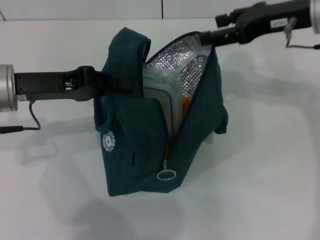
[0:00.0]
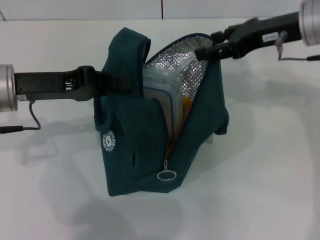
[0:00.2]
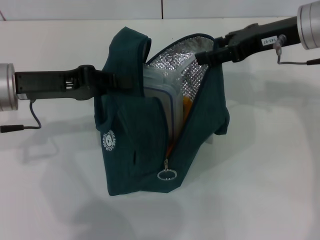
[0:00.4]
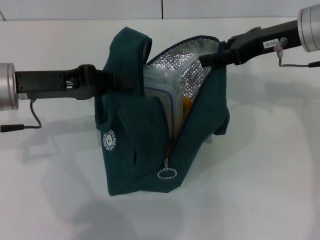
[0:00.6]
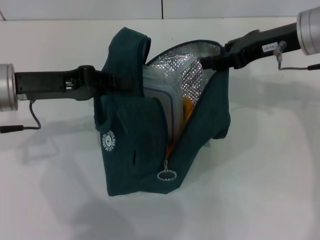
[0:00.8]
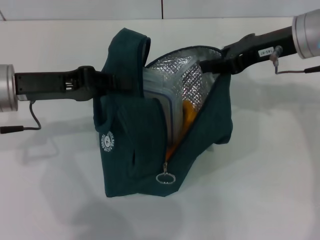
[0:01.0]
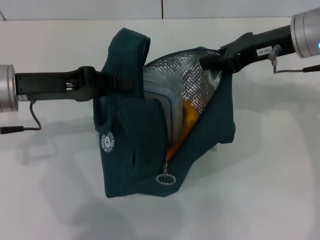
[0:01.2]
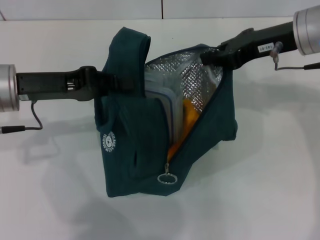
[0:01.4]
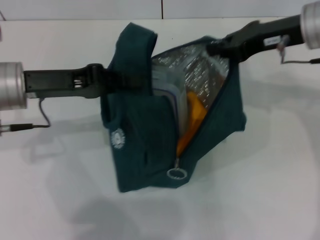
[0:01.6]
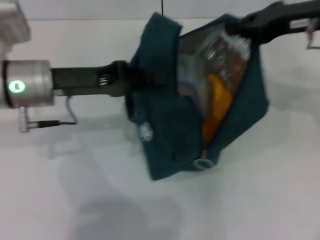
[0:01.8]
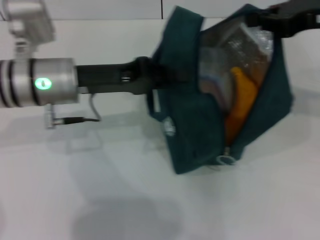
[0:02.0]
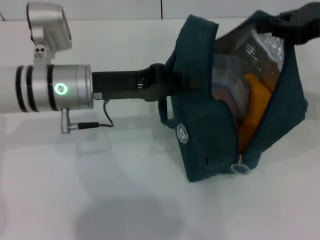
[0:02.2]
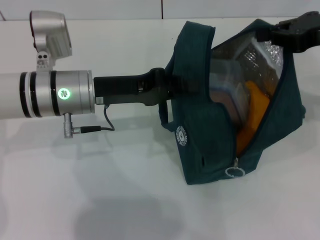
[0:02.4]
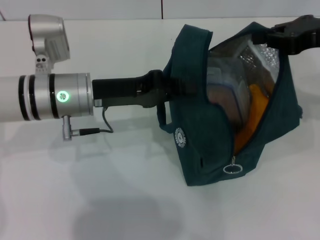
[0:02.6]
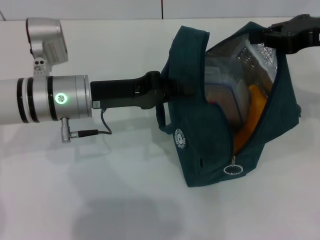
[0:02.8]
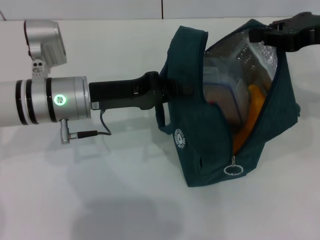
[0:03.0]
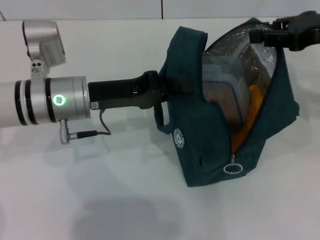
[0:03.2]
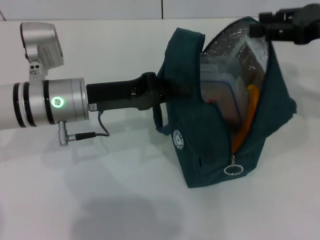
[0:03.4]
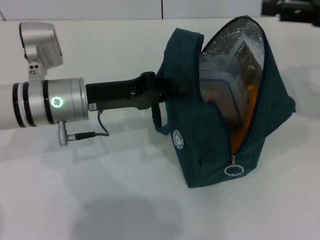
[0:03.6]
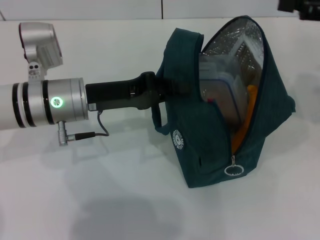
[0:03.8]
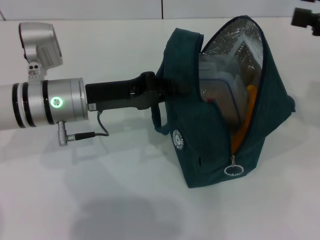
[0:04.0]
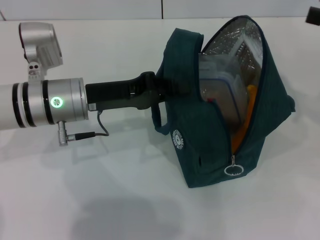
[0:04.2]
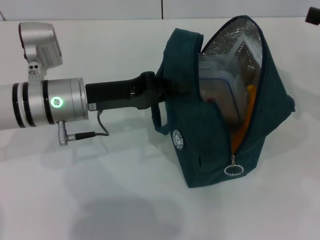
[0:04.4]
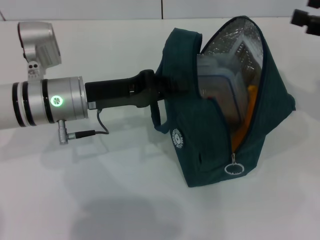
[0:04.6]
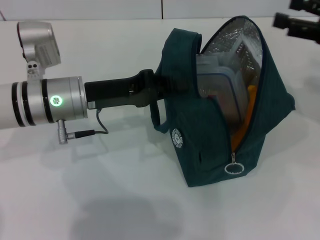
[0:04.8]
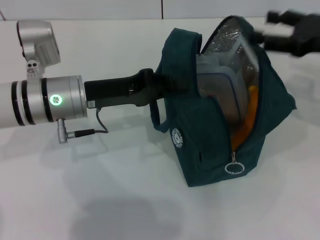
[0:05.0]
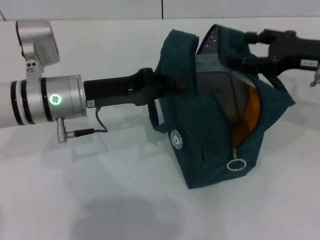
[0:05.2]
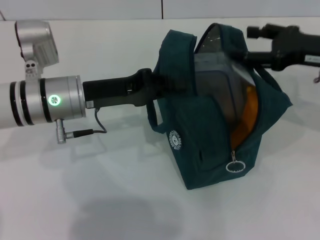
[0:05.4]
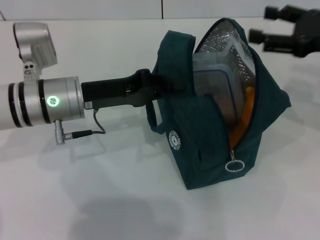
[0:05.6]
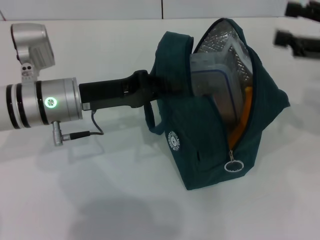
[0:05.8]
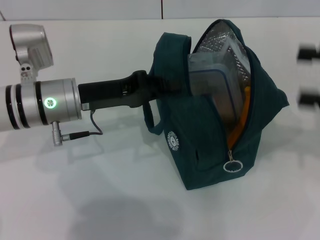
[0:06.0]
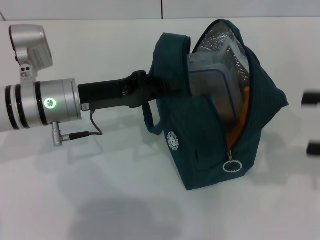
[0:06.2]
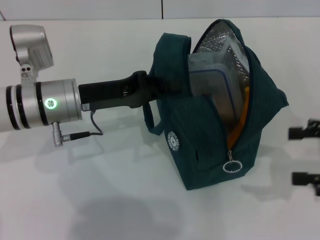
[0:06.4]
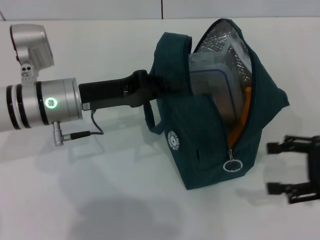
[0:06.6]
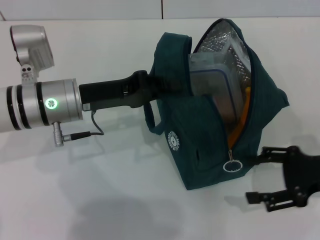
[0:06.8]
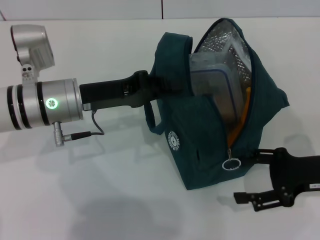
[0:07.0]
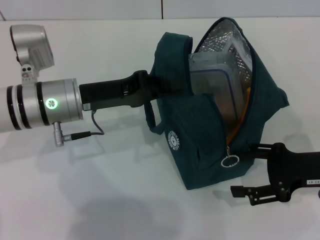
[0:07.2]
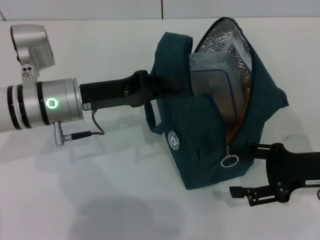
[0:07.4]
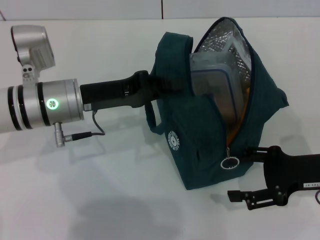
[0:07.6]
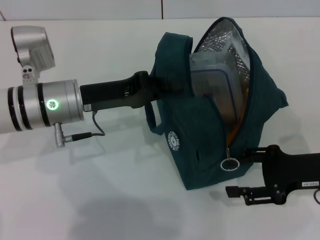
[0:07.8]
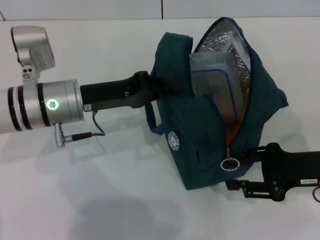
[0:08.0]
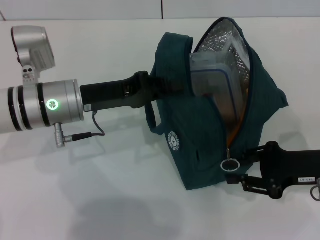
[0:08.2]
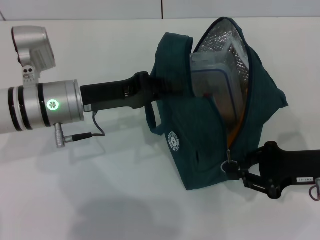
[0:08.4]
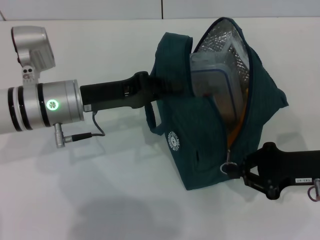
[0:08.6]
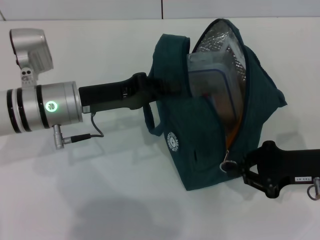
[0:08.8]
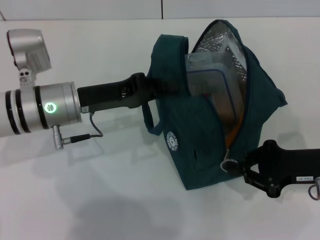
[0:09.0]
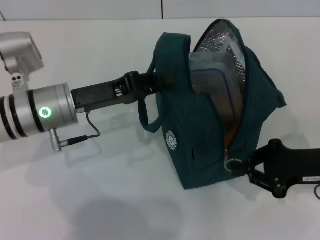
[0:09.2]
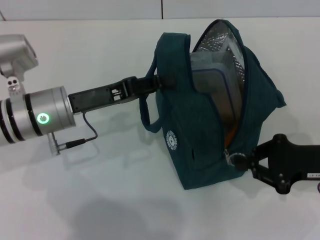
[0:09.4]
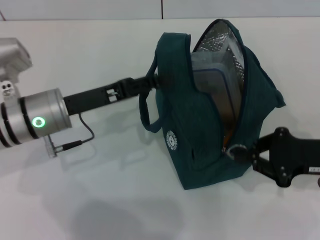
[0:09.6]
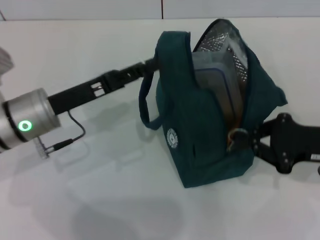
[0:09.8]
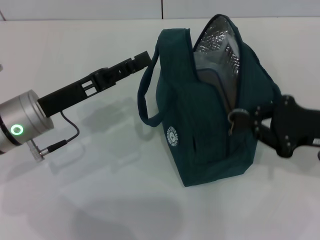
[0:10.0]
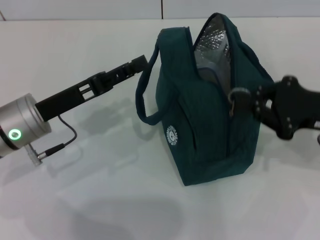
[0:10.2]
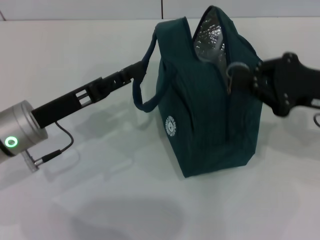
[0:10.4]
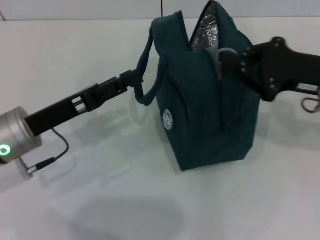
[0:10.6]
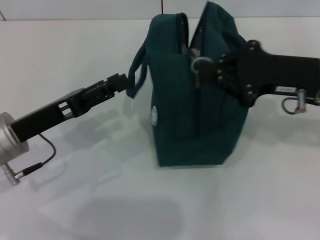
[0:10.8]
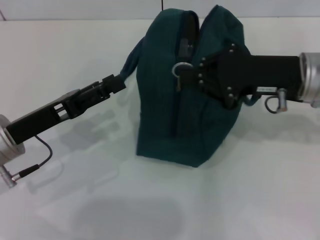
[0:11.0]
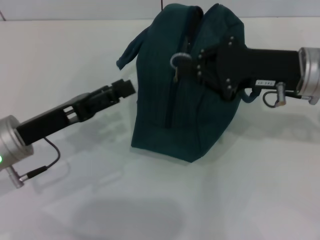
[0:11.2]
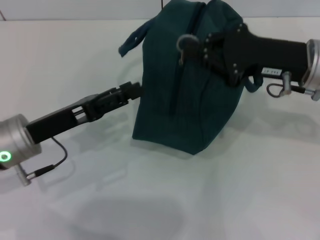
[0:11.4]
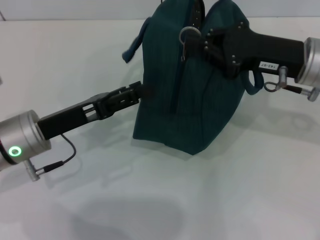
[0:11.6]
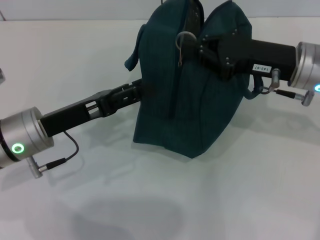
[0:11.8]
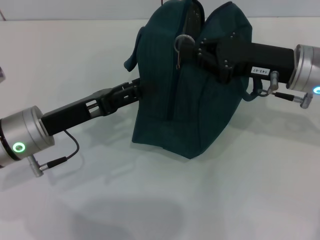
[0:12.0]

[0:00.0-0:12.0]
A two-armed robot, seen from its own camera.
Step, 0:00.0 to 0:03.6: Hold the lunch bag with your right hand.
0:00.0 to 0:01.6: The right gripper closes up.
0:01.6 to 0:03.0: Both grippers move to the right, approximately 5 cm.
0:03.0 to 0:04.4: The right gripper heads to the right, covering approximately 10 cm, and opens its fingers.
0:04.4 to 0:06.0: The right gripper goes about 5 cm backward.
0:06.0 to 0:07.6: The right gripper is displaced downward and to the left by approximately 15 cm.
0:07.6 to 0:09.0: The right gripper closes up.
0:09.0 to 0:10.4: The right gripper travels upward by about 5 cm, while the left gripper shifts by approximately 5 cm, and opens its fingers.
0:10.4 to 0:12.0: The right gripper shifts approximately 5 cm to the left.

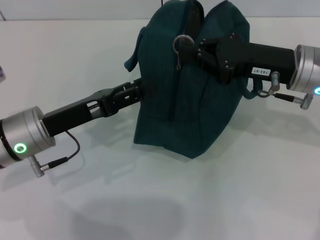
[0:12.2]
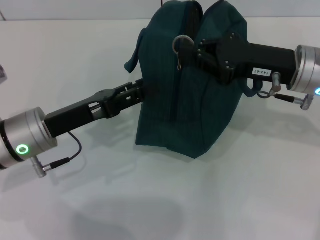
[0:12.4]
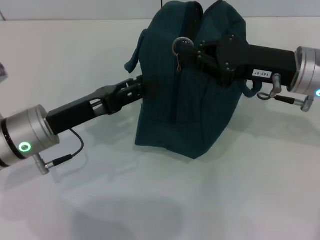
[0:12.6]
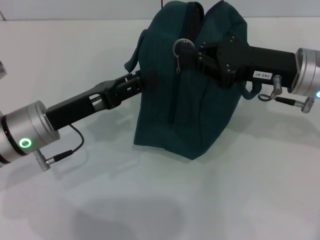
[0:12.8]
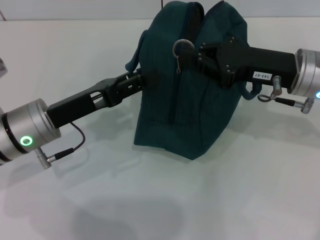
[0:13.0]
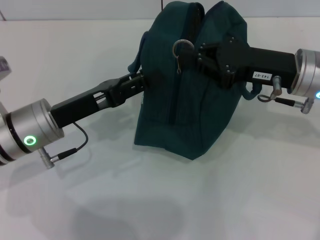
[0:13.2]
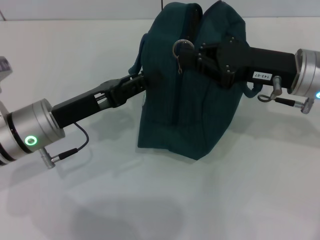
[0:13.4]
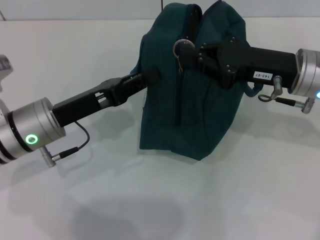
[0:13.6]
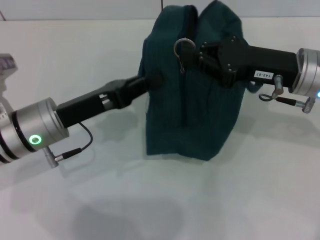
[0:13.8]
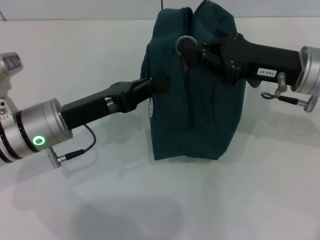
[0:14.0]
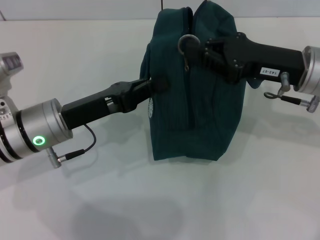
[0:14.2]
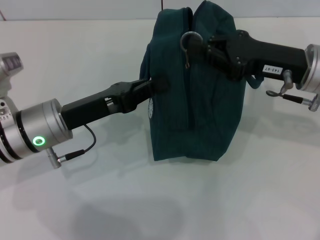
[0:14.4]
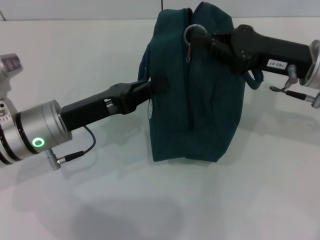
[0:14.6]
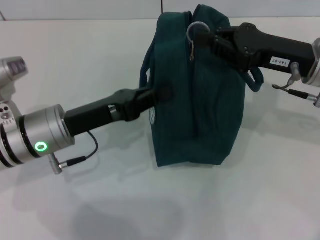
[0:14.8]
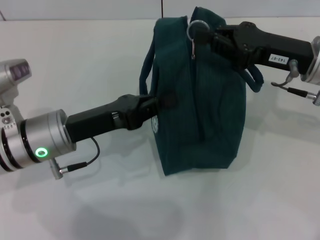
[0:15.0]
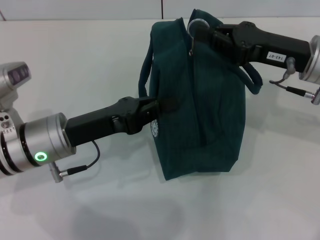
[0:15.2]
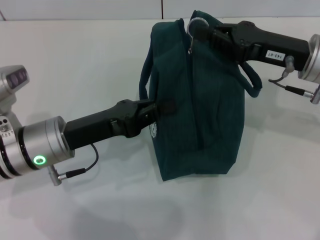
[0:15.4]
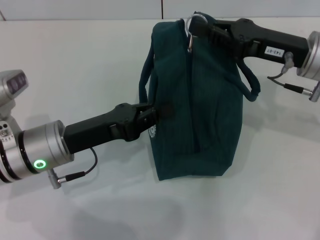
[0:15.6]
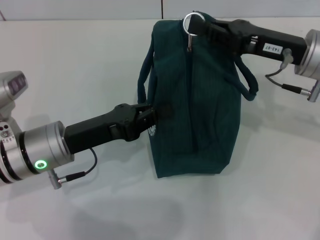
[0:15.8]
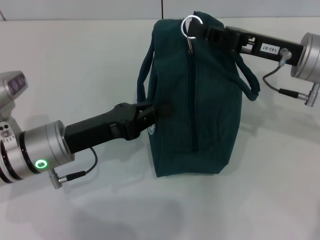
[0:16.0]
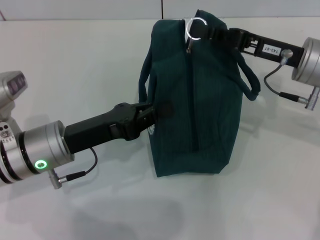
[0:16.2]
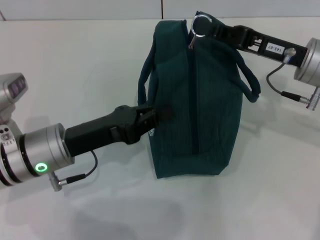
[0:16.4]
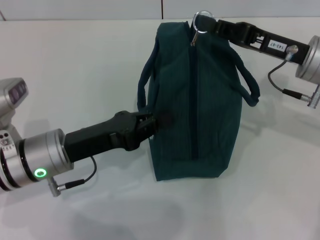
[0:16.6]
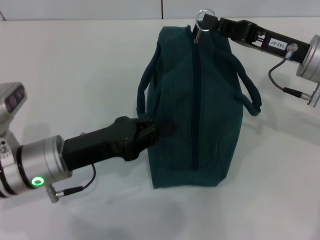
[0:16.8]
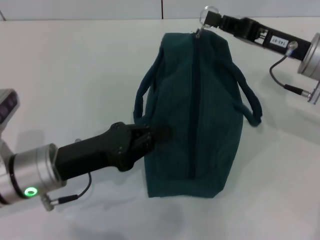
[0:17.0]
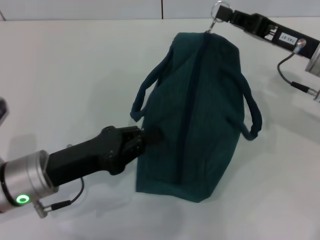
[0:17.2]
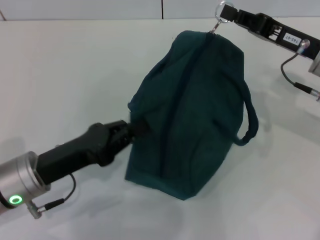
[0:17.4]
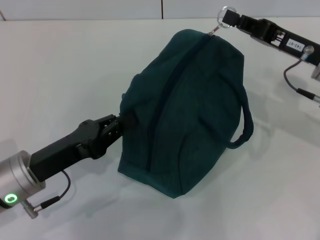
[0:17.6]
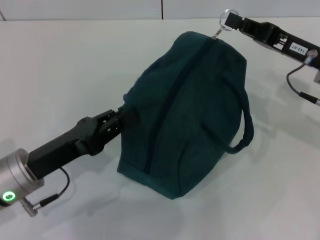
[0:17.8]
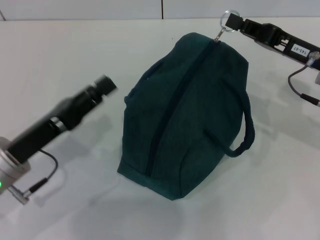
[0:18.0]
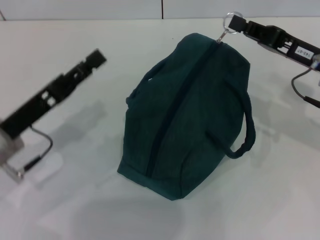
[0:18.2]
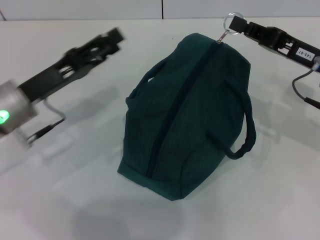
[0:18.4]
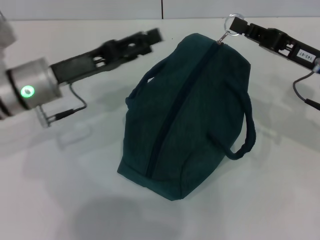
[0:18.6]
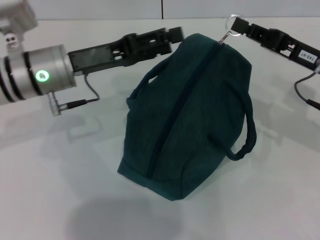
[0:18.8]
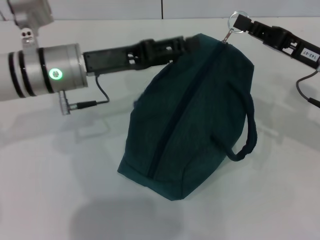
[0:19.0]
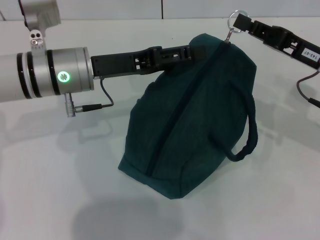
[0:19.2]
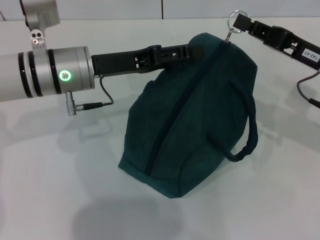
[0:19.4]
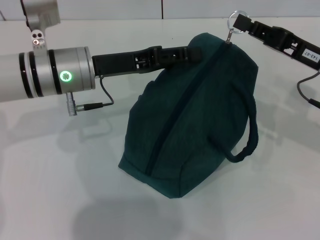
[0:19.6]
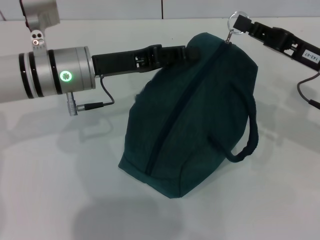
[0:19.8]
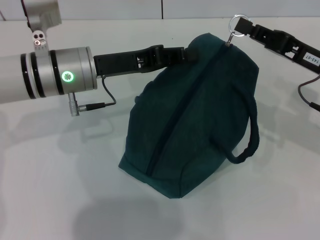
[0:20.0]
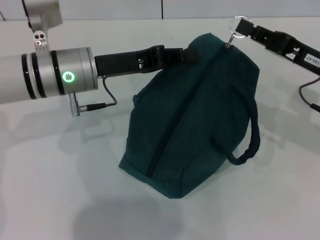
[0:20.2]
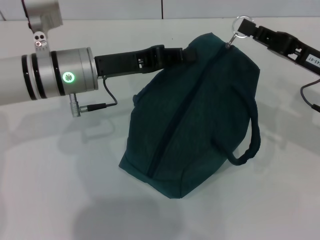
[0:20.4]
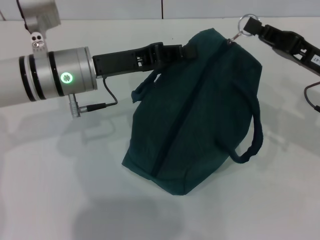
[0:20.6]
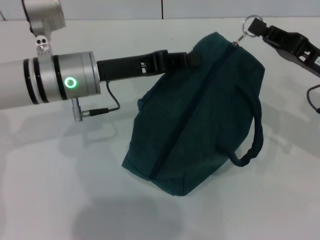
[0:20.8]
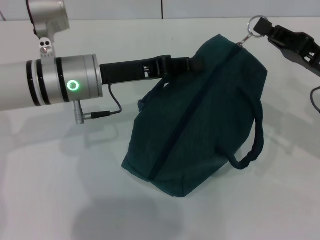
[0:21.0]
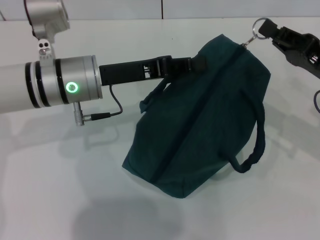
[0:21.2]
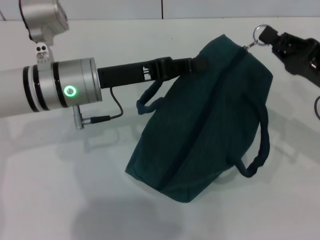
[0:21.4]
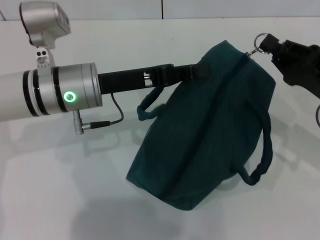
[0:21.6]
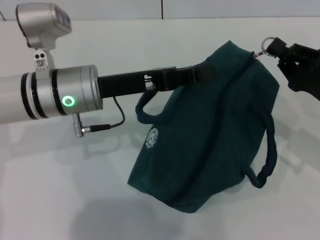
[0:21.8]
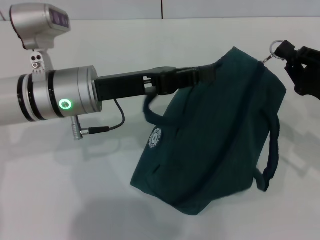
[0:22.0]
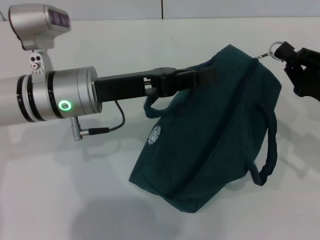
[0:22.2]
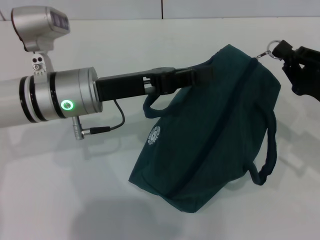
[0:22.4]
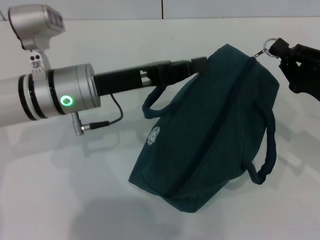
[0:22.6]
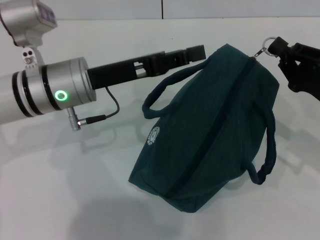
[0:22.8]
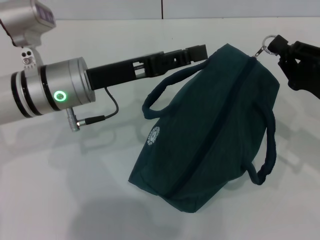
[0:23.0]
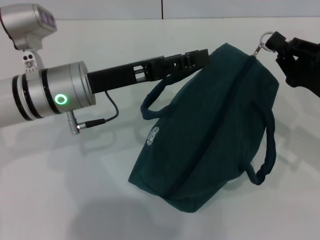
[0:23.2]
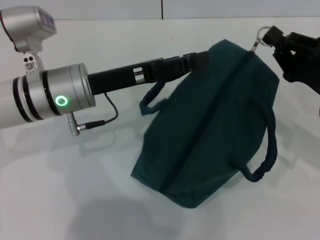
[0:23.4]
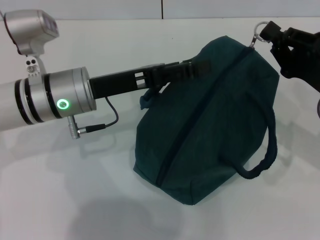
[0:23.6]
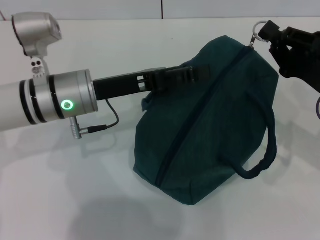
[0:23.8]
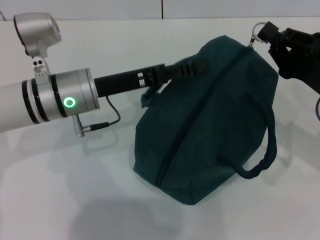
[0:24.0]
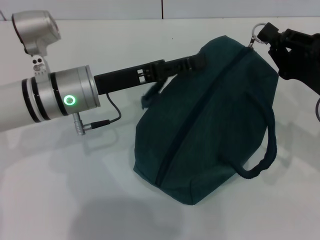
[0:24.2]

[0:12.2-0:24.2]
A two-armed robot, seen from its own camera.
0:12.2 to 0:13.8: The left gripper closes up.
0:16.6 to 0:18.2: The left gripper is displaced to the left by some 5 cm.
0:18.2 to 0:19.8: The left gripper heads forward and to the right, covering approximately 15 cm, and opens, then closes once more.
0:19.8 to 0:21.2: The left gripper closes up.
0:22.6 to 0:24.2: The left gripper opens.
